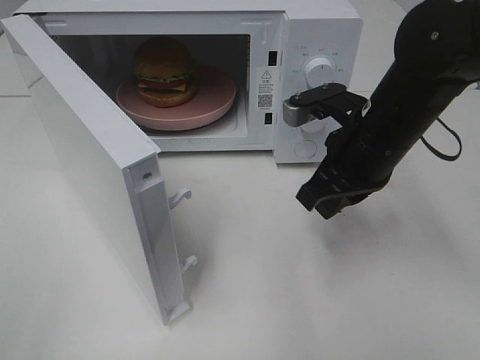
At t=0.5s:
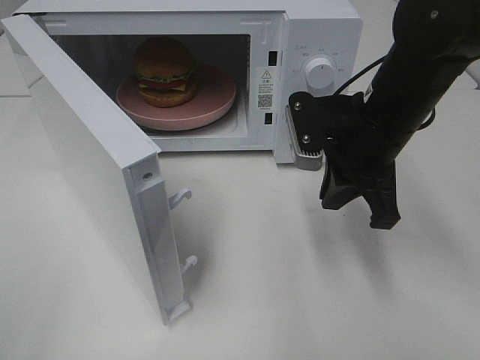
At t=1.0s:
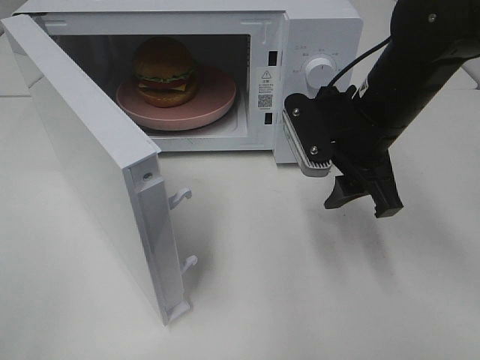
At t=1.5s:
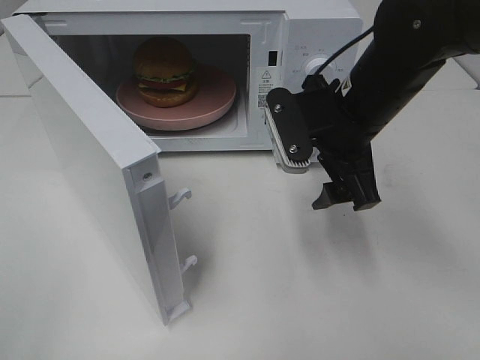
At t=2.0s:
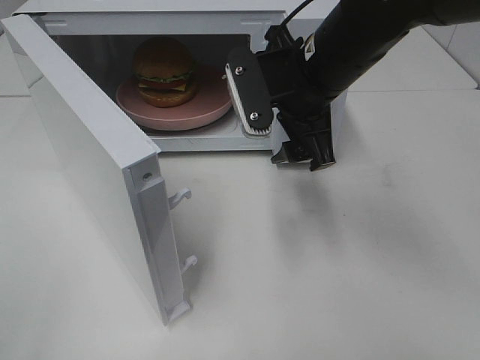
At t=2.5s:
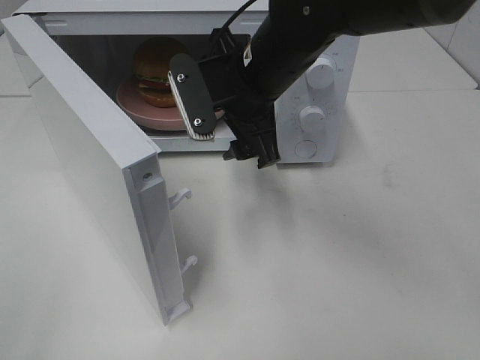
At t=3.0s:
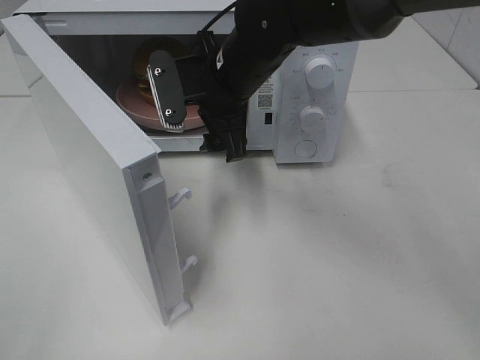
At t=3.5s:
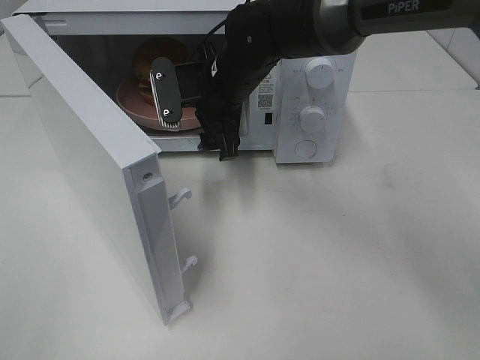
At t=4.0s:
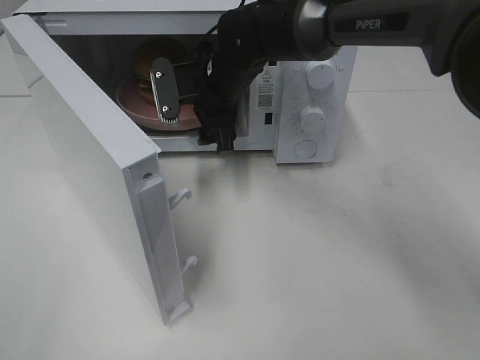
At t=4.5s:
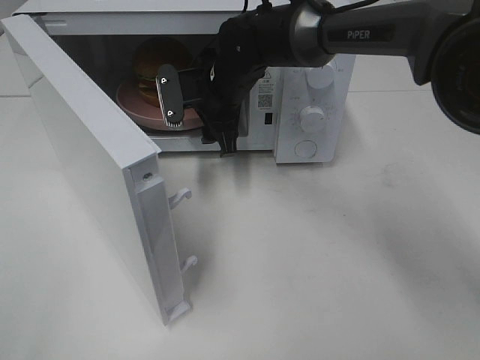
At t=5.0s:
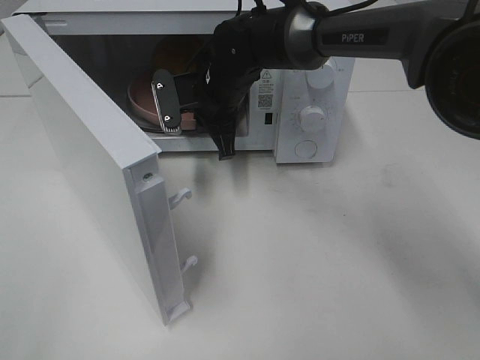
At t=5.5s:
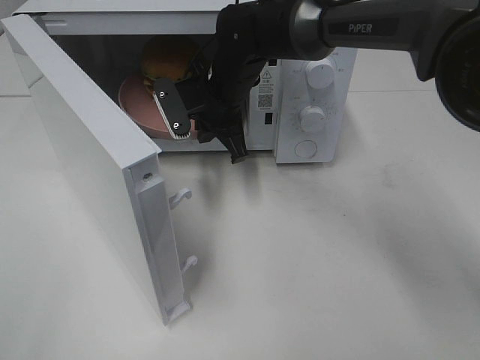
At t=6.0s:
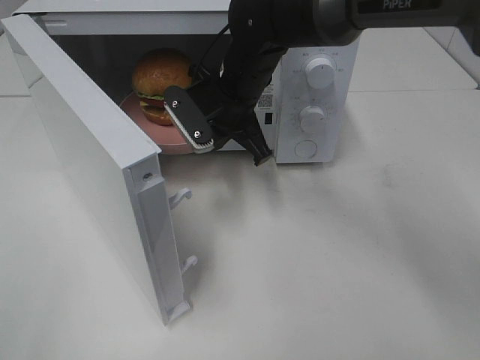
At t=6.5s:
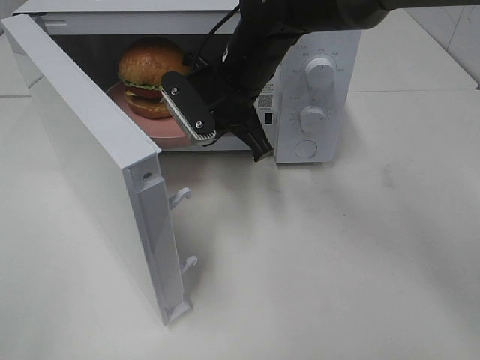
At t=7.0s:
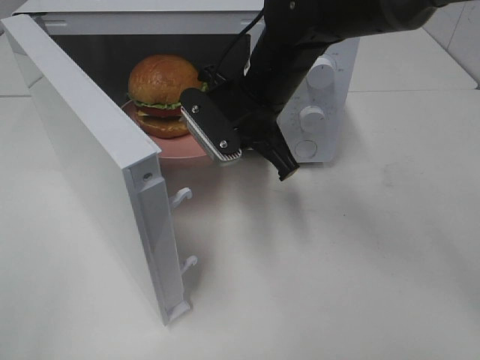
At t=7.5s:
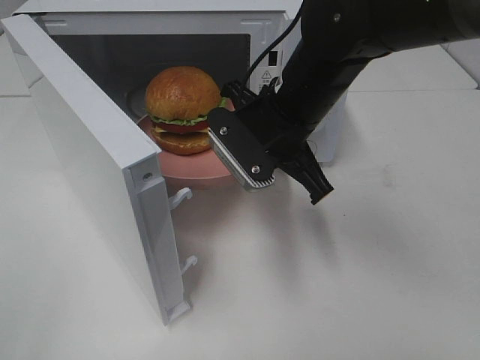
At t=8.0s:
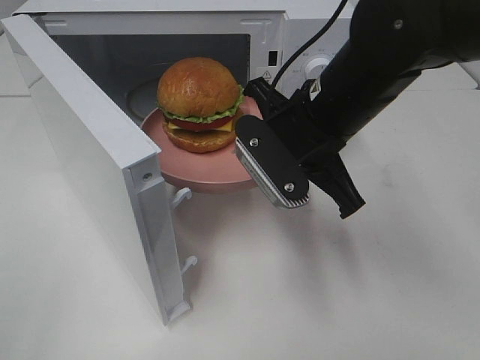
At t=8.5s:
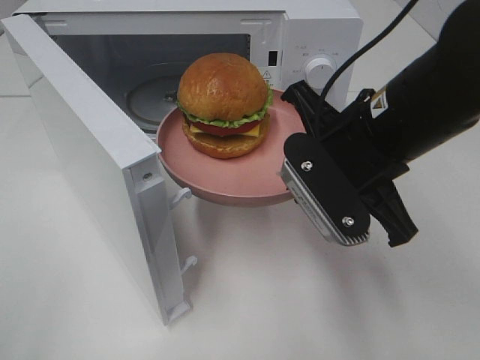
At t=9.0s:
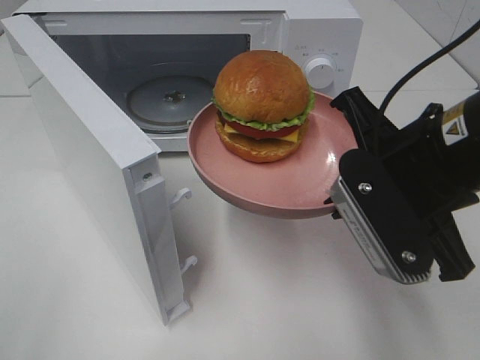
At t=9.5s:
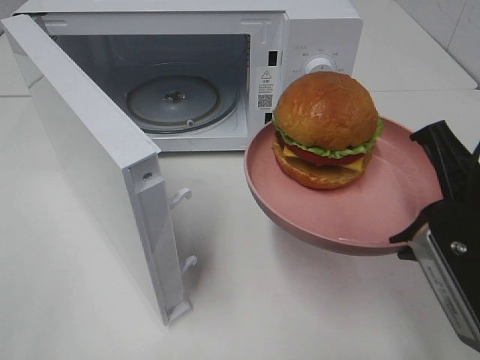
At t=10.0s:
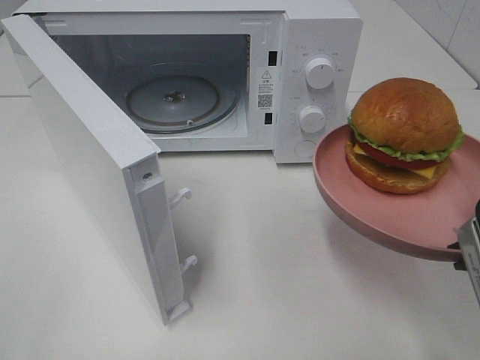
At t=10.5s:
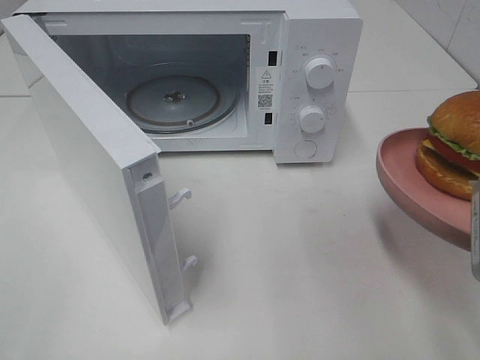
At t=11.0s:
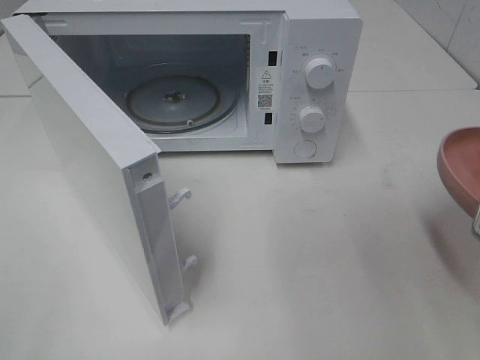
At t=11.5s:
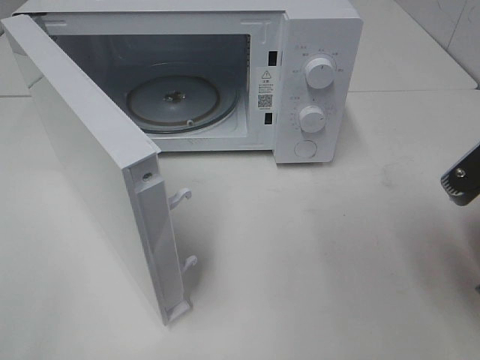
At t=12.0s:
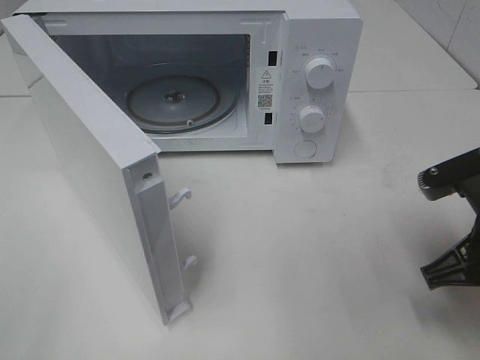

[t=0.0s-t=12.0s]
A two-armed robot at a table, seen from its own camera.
Task of the whole recording: Heat the burger.
Step, t=0.0s to t=5.0s: Right hand: grab the plate with the hamburger.
t=0.0s to t=2.0s: The right gripper is displaced to the left by roughly 5 cm, and opens.
t=2.0s to t=4.0s: The right gripper travels forward, to the left and downward by approximately 15 cm.
t=4.0s to t=6.0s: The right gripper closes.
t=6.0s to t=8.0s: The right gripper travels backward and to the right by roughly 15 cm.
t=8.0s to t=10.0s: The right gripper travels backward and to the right by approximately 20 cm.
t=10.0s to t=12.0s: The right gripper goes about 10 cm downward and forward.

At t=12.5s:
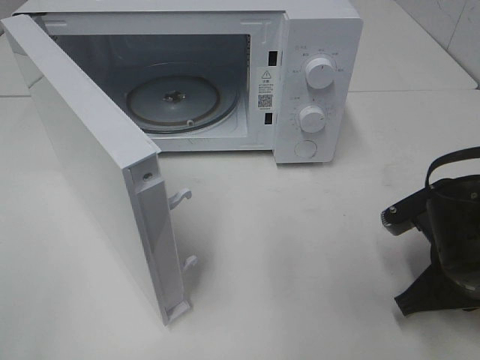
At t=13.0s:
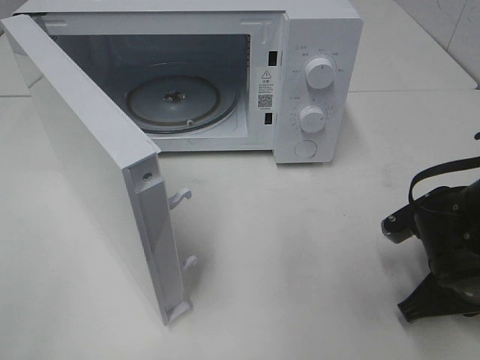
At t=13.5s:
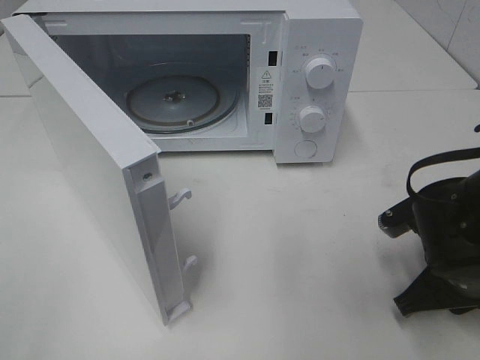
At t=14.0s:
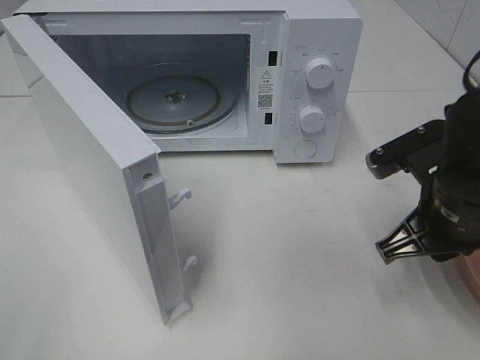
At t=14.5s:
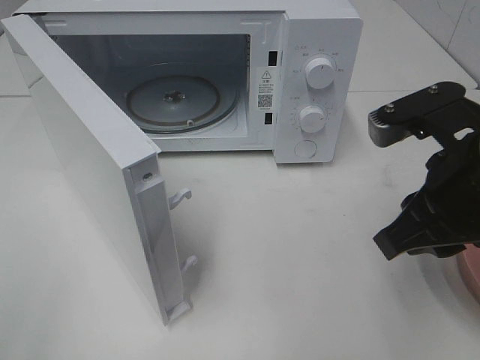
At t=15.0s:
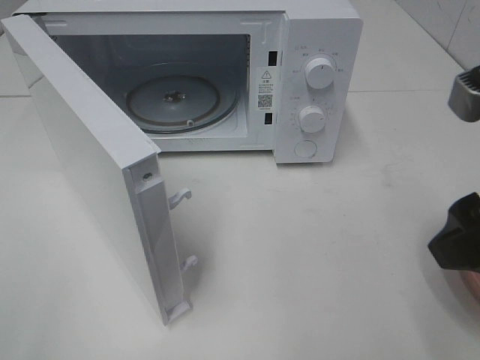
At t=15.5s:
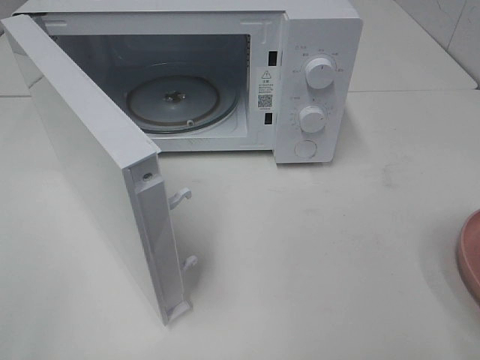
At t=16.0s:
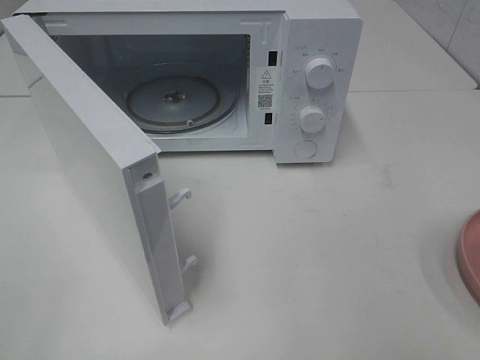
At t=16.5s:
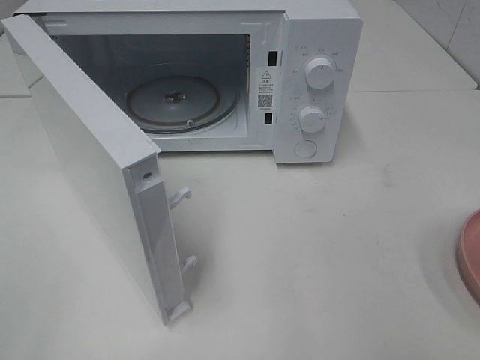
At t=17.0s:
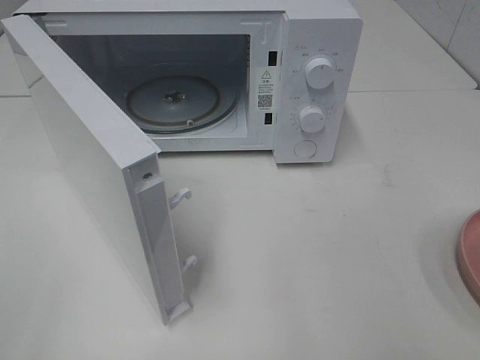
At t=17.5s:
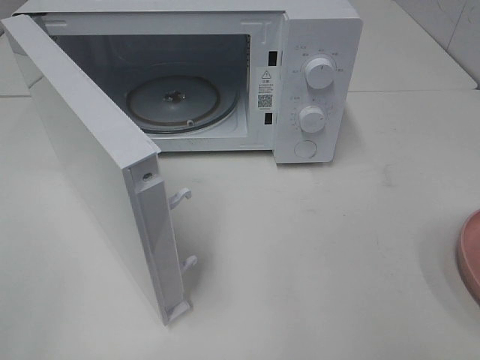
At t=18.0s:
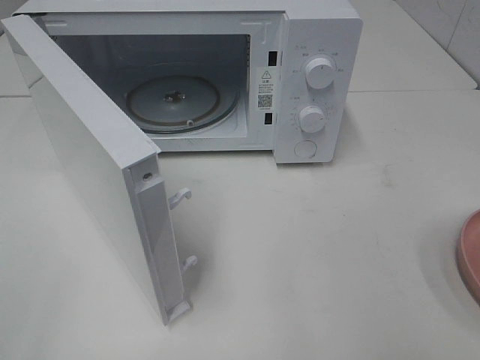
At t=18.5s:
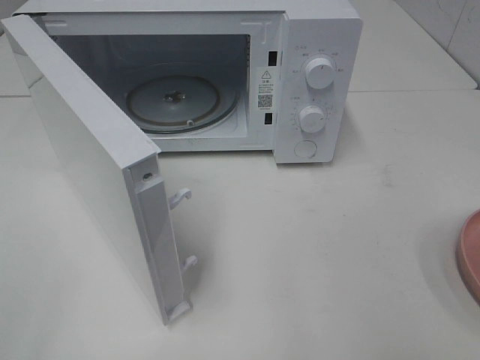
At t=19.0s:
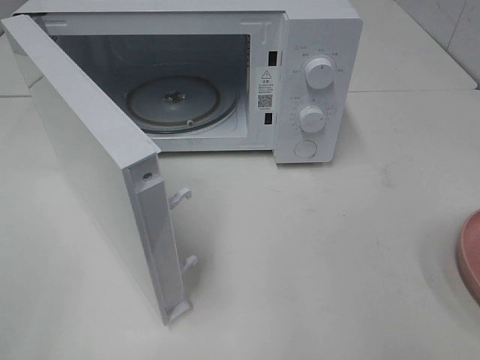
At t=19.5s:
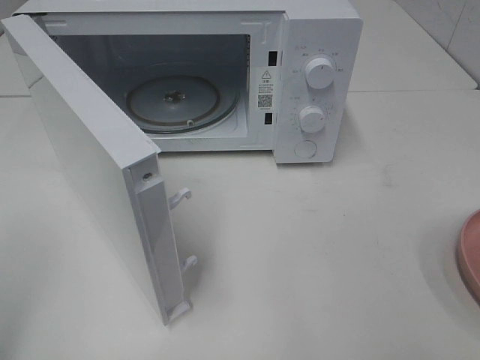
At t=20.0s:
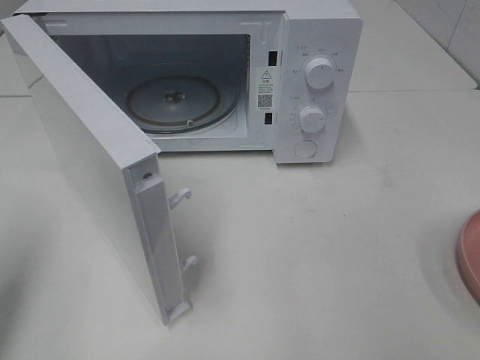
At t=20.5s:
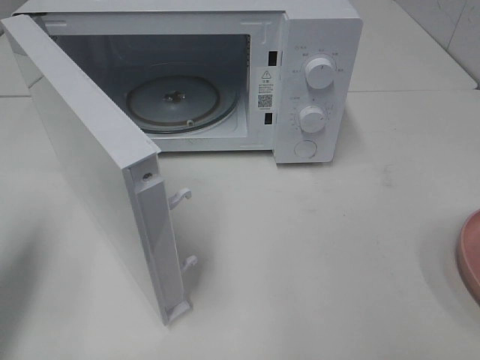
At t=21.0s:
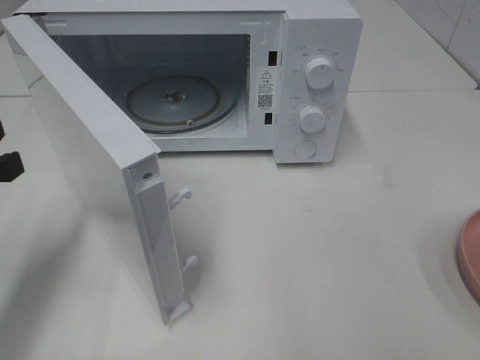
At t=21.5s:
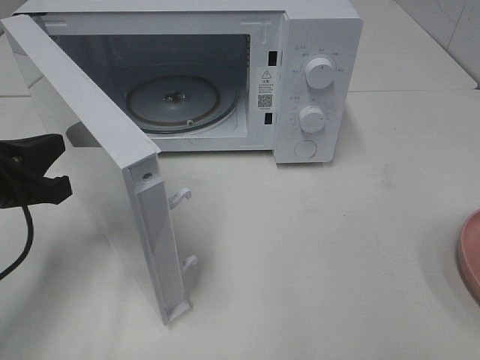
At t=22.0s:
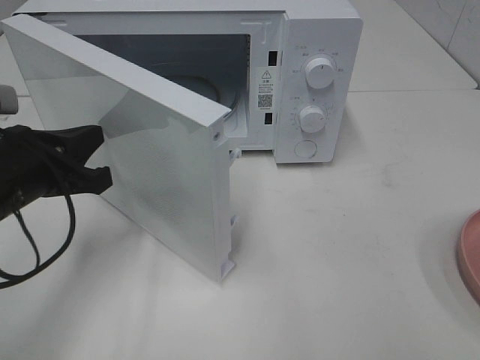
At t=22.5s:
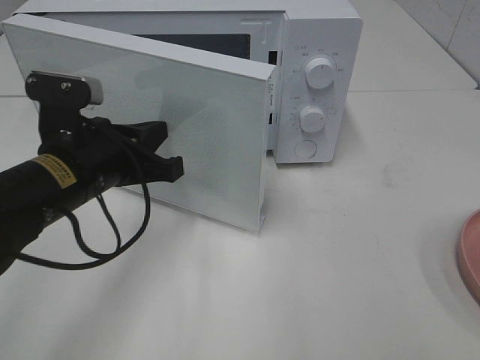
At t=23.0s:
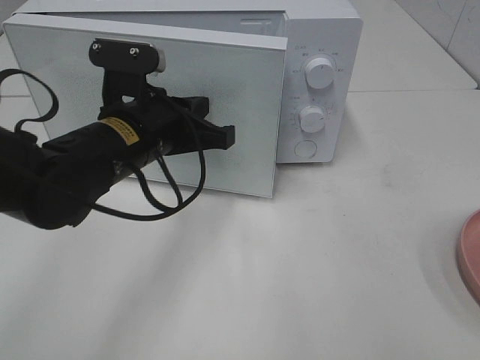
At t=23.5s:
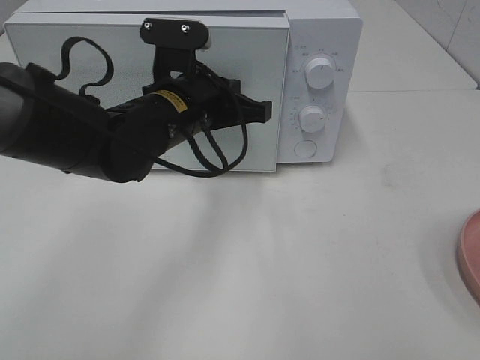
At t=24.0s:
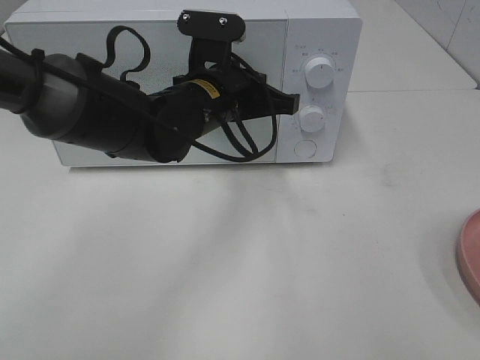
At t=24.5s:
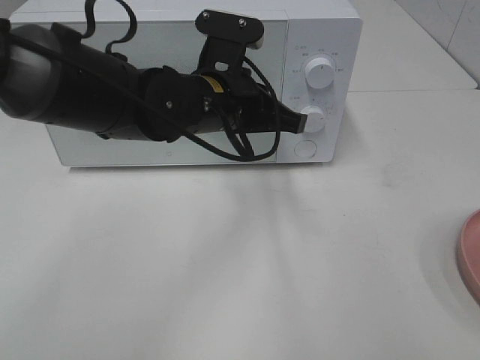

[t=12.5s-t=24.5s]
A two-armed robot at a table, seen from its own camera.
Task of the whole recording: Heat the burger.
Step, t=13.5s to t=24.0s: Left hand: close the microwave door.
t=12.5s to t=14.5s: The right gripper shifts some 15 cm upward.
t=14.5s to t=16.5s: The right gripper is displaced backward and to the right by some 20 cm, and opens its fingers.
t=16.5s to t=18.5s: Both grippers stay put.
t=18.5s to t=20.5s: The left gripper heads forward, covering approximately 20 cm, and closes its fingers.
t=20.5s to t=22.5s: The left gripper goes roughly 20 cm to the right, forward and downward.
t=22.5s to t=24.5s: The left gripper is displaced to the right and forward by approximately 15 cm.

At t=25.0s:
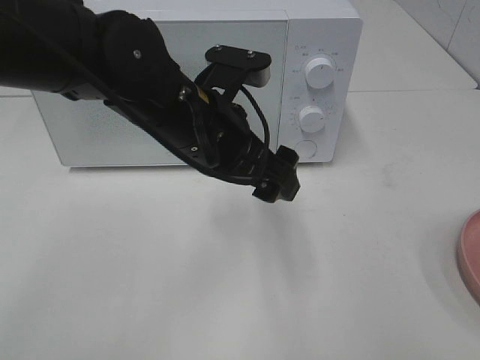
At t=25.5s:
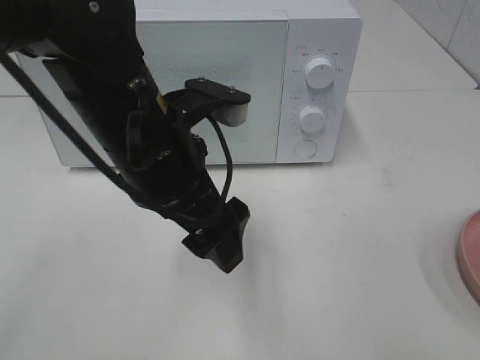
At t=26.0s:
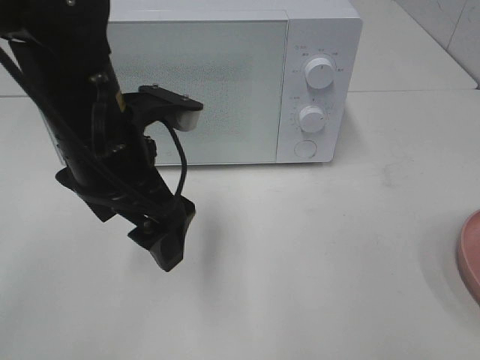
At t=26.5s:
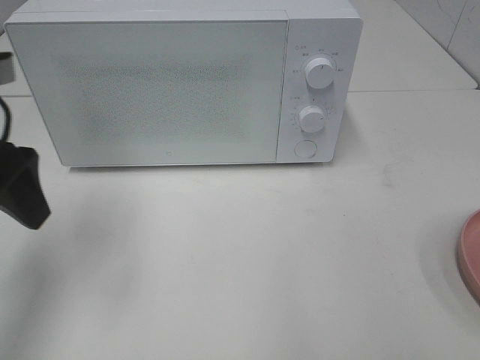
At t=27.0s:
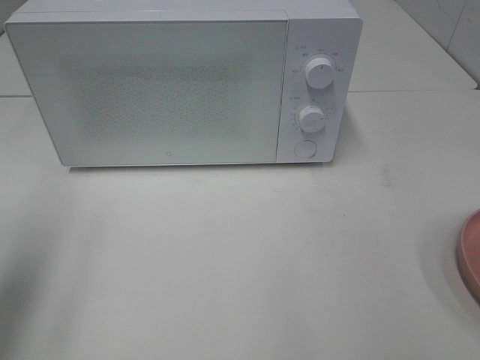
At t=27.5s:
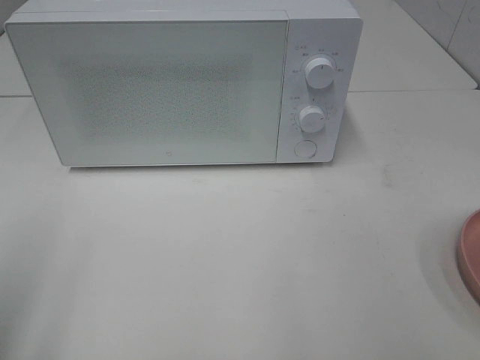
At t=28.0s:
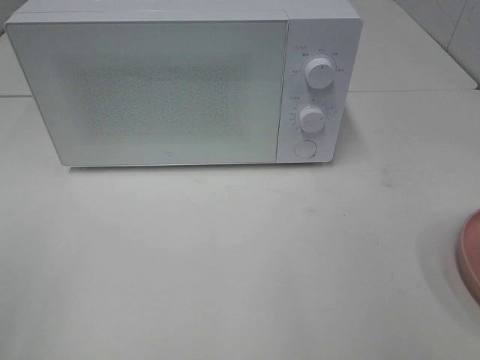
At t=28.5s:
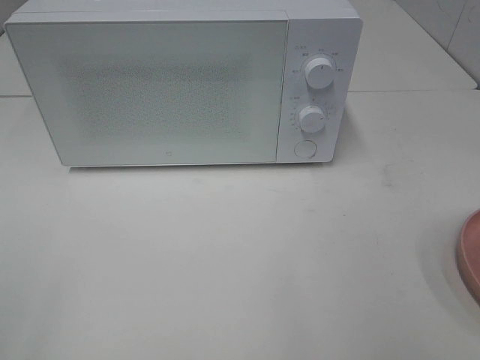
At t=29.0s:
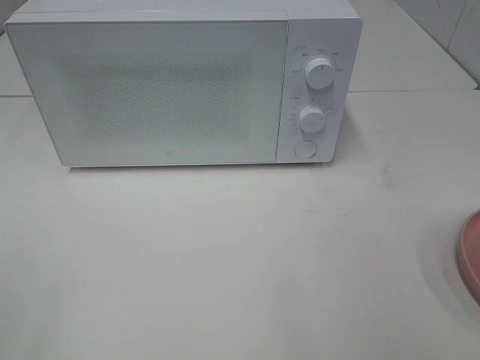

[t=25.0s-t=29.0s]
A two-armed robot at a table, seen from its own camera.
Task of the whole recording: Heat the burger.
t=25.0s to t=27.0s: The left gripper heads to the left, covering some 25 cm.
t=27.0s to t=29.0s: The left gripper travels backward by about 15 cm.
